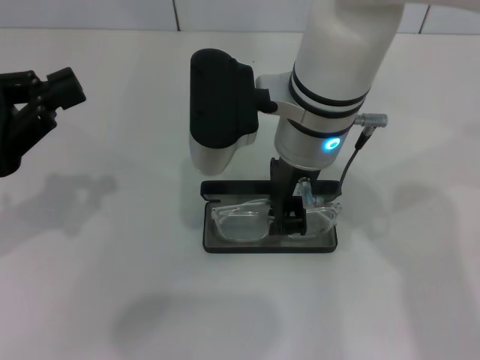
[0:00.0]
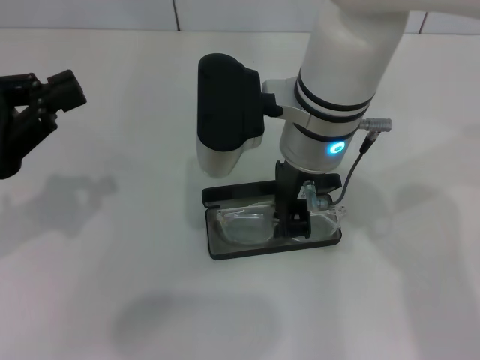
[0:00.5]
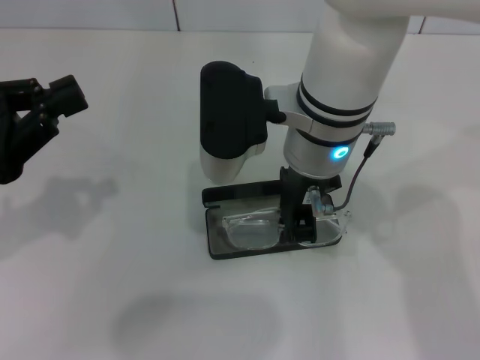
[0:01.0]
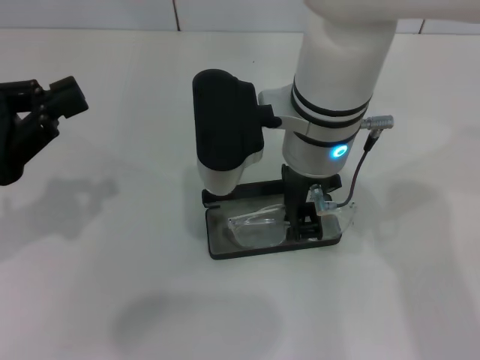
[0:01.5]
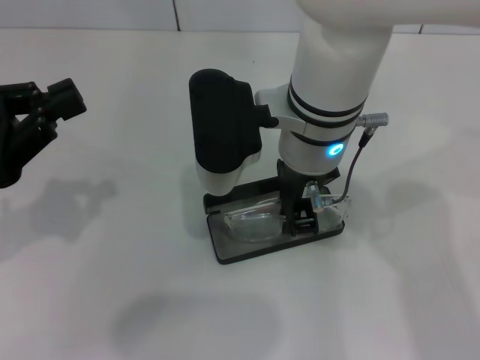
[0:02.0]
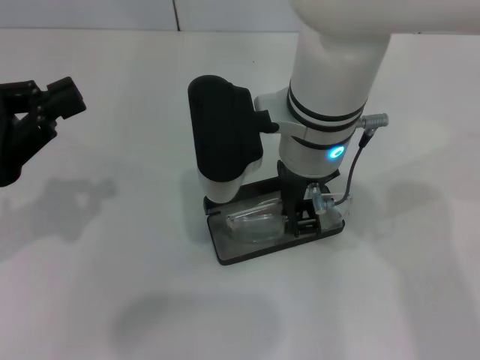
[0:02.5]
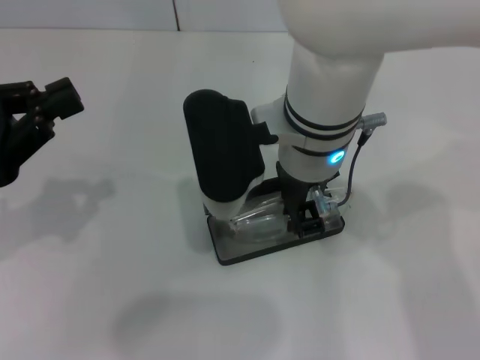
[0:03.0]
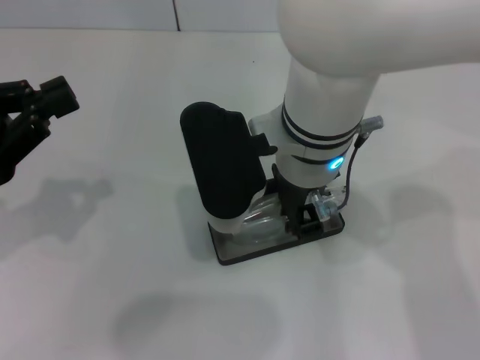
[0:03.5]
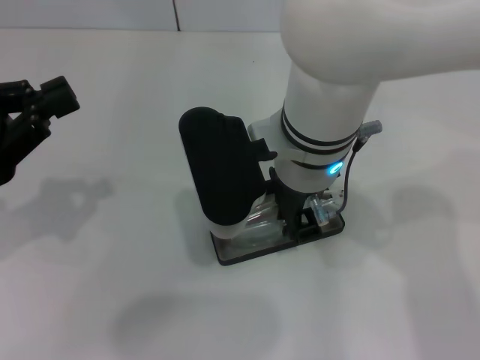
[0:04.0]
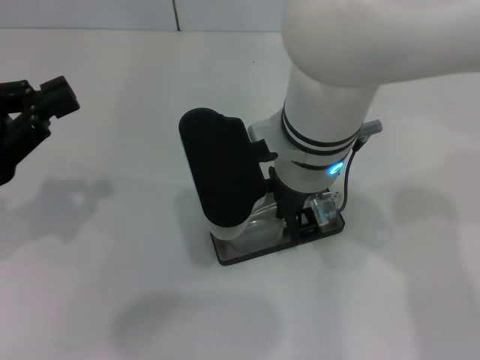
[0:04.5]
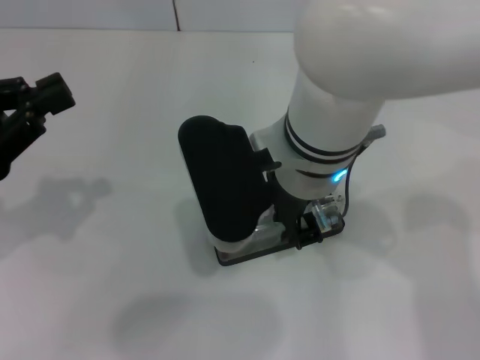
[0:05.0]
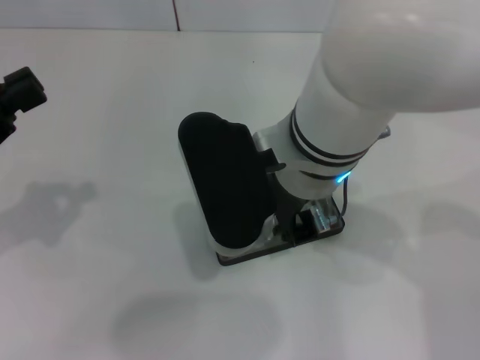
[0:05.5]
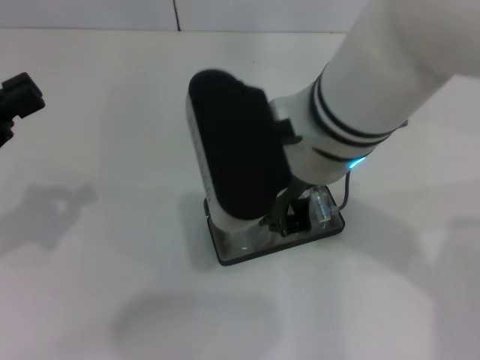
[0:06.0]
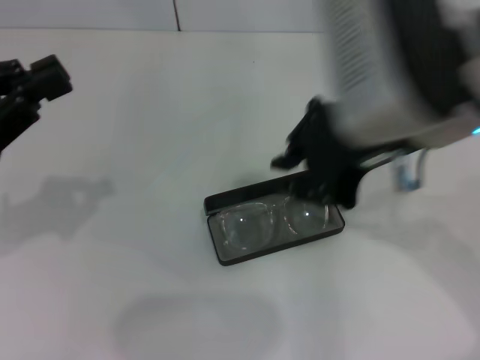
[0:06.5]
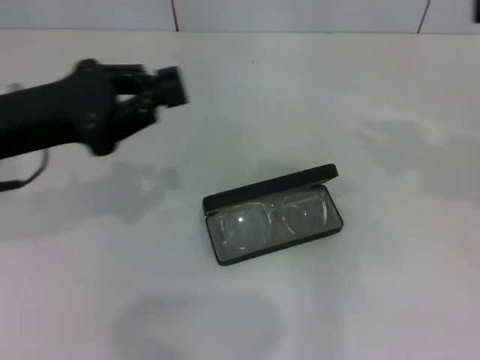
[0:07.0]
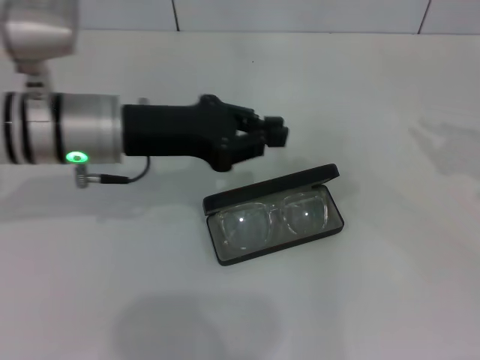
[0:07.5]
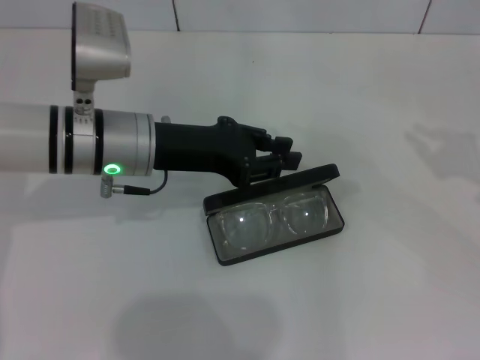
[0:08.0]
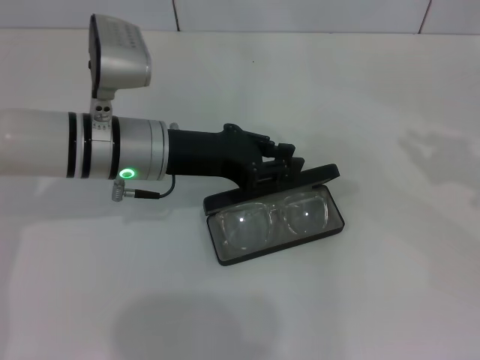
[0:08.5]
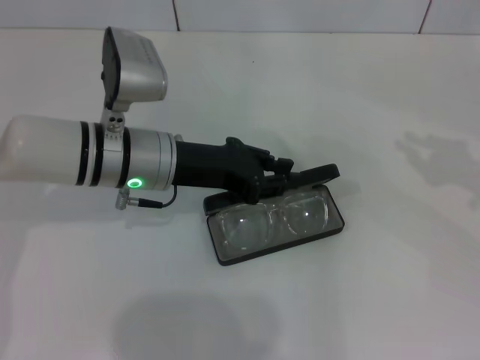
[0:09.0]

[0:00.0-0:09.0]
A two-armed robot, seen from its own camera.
Step, 0:00.0 to 0:05.5: Put the glasses into the case with your right hand.
0:00.0 to 0:04.5: The grippers stay close to where they were, moving slightly.
0:04.5 to 0:07.0: The right gripper moves to the right, about 30 cm; the left gripper travels to the right and forward by some 10 cm.
0:07.0 to 0:09.0: The left gripper is displaced to the right, downward and forward by about 15 cm, while the right gripper travels downward and to the right by about 10 cm.

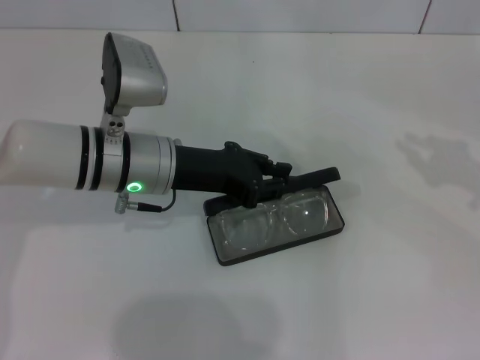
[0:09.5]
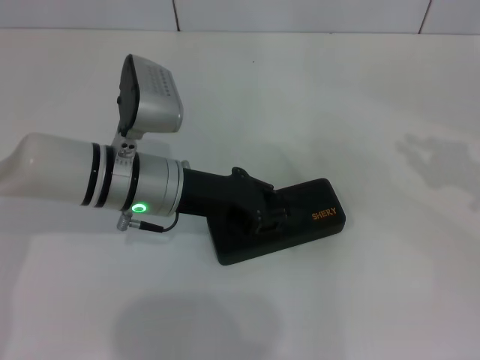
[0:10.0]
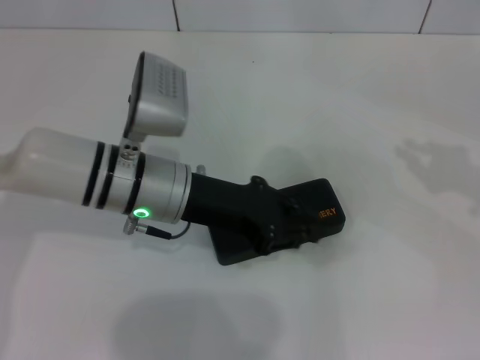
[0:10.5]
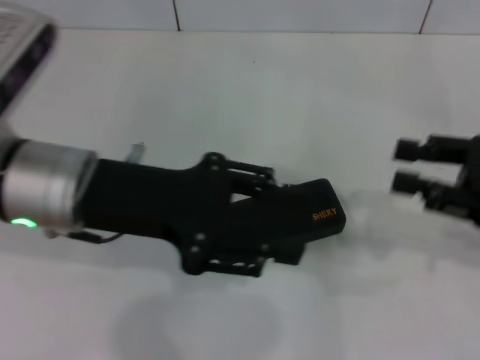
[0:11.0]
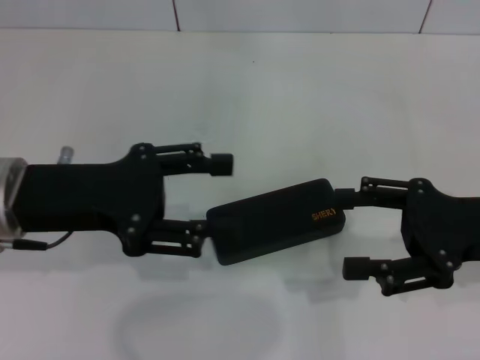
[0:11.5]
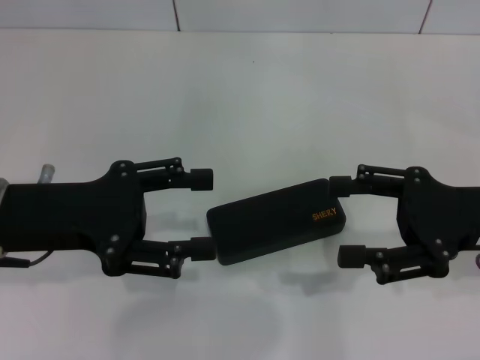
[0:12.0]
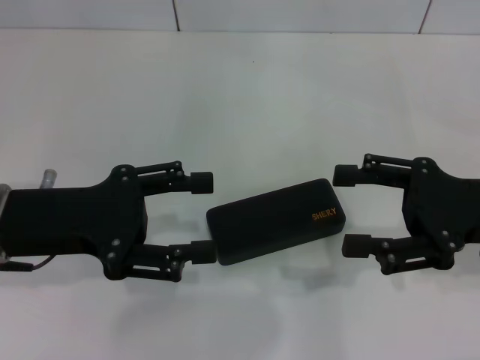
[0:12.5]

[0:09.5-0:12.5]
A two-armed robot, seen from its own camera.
0:09.5 to 0:11.0: The left gripper heads upward and backward, covering roughly 10 cm; the right gripper travels to the left by about 5 cm.
0:11.0 to 0:12.5: The right gripper opens its fingers. Meanwhile the left gripper moves to the left, about 5 cm, and opens.

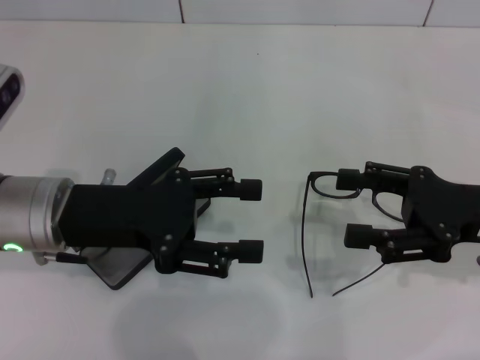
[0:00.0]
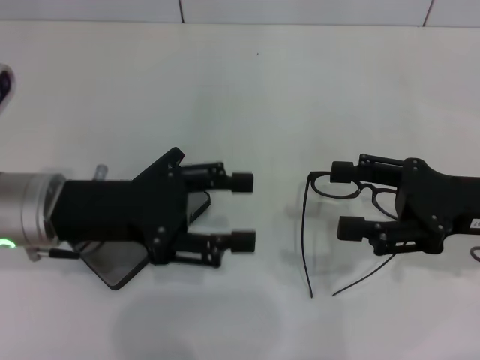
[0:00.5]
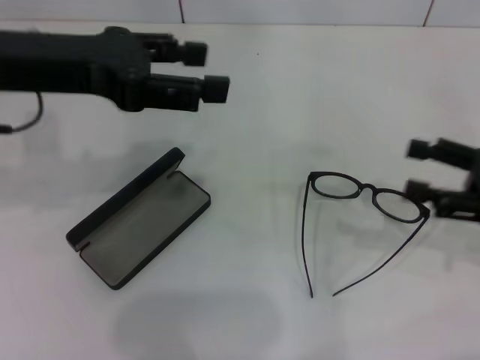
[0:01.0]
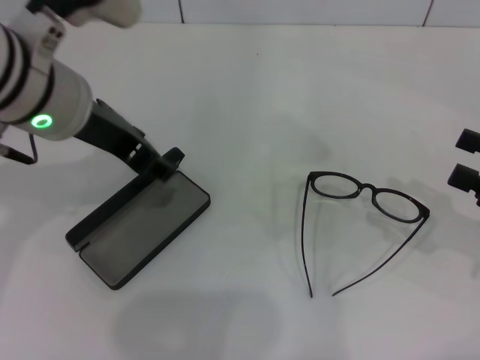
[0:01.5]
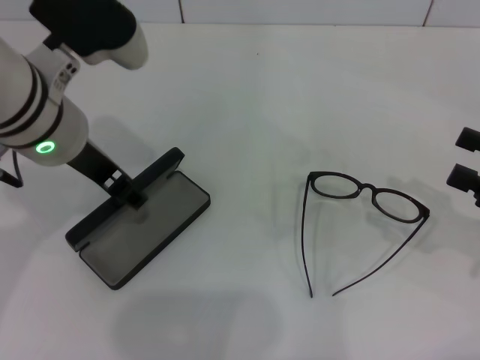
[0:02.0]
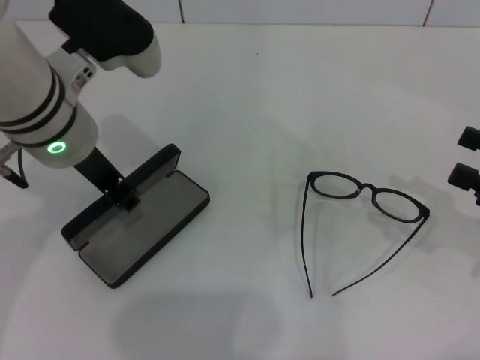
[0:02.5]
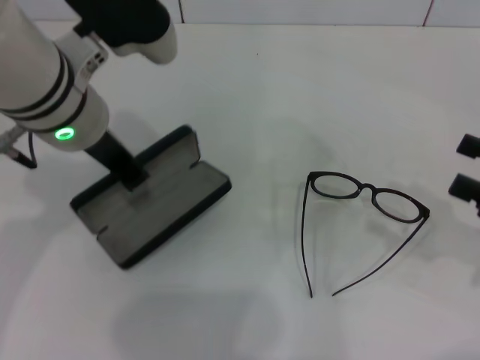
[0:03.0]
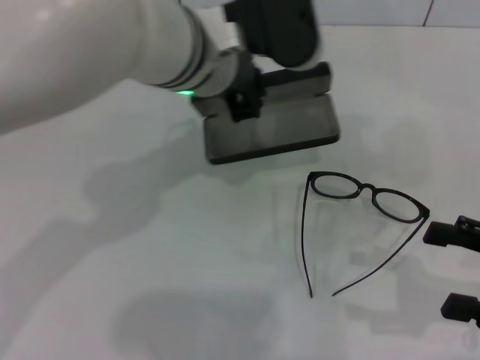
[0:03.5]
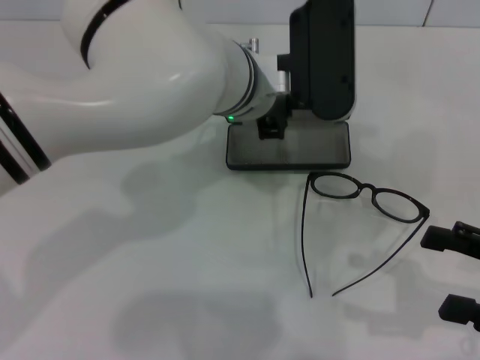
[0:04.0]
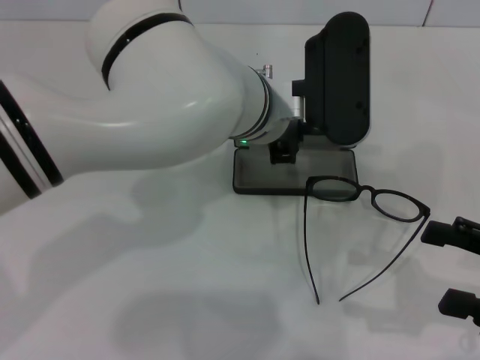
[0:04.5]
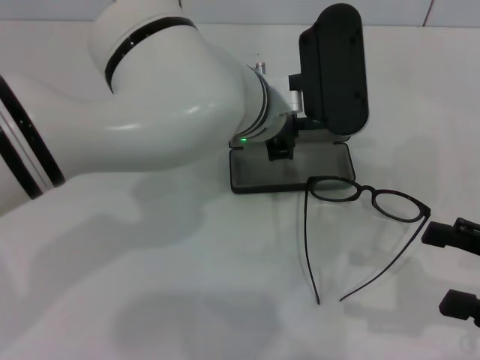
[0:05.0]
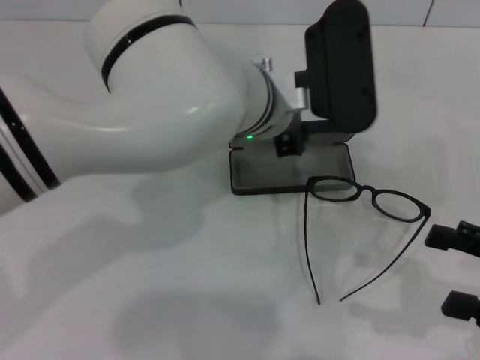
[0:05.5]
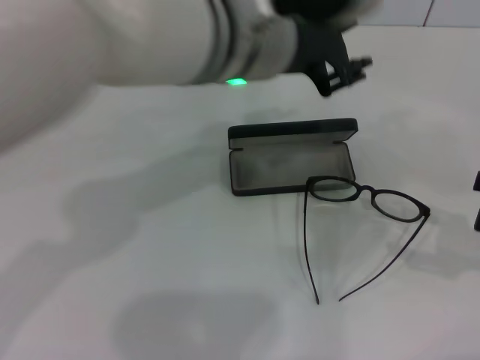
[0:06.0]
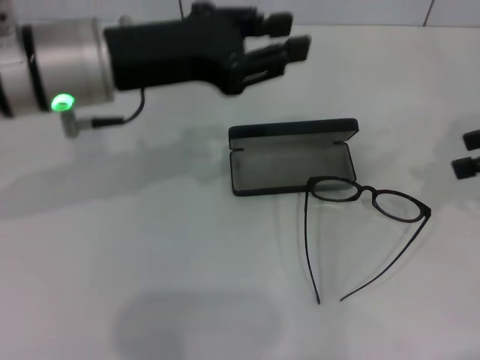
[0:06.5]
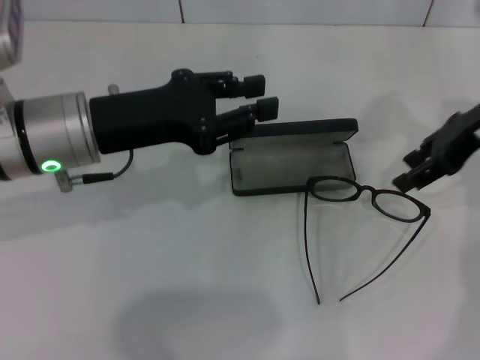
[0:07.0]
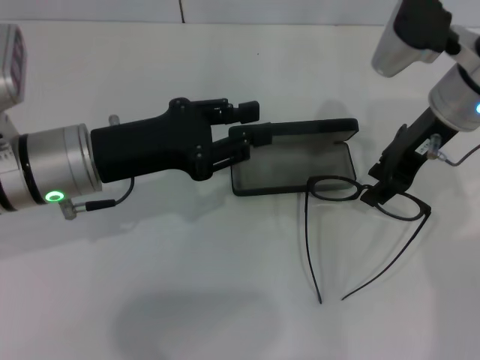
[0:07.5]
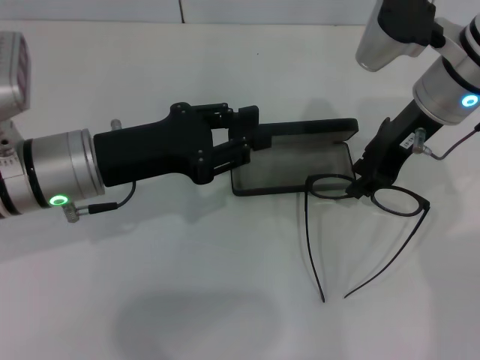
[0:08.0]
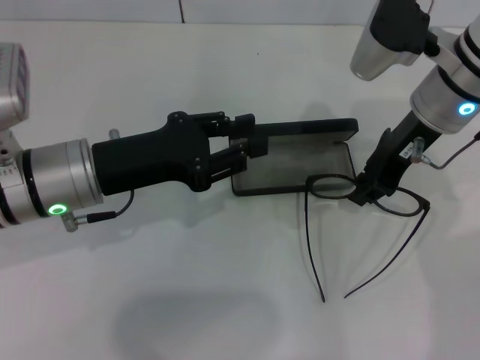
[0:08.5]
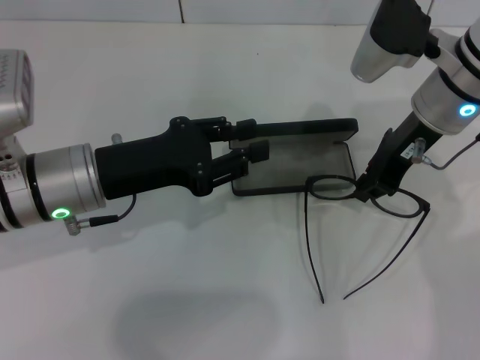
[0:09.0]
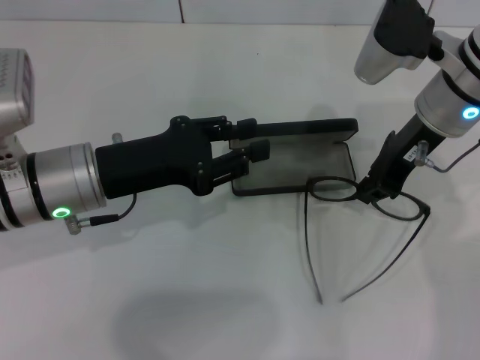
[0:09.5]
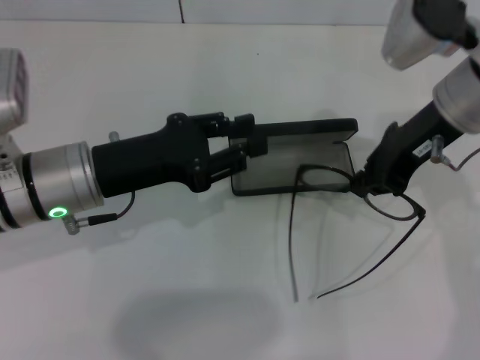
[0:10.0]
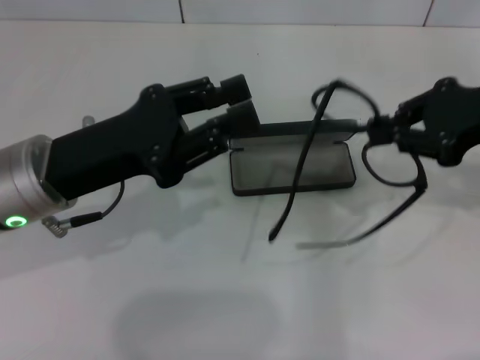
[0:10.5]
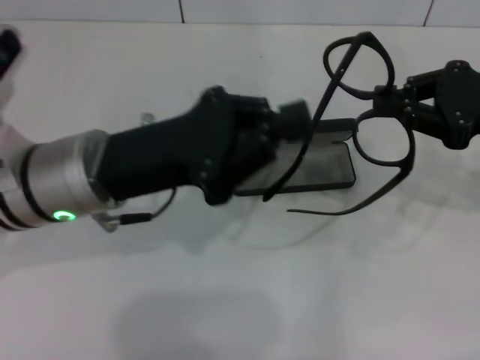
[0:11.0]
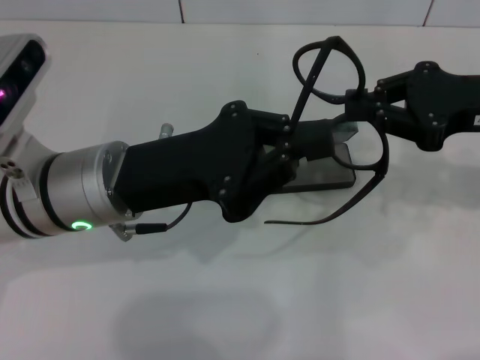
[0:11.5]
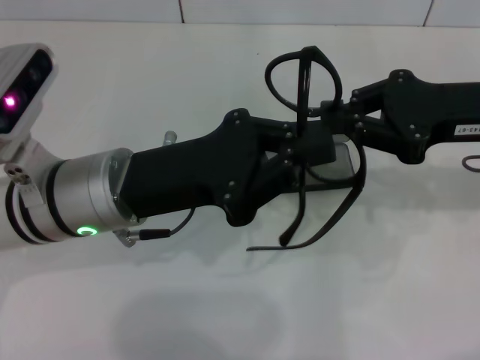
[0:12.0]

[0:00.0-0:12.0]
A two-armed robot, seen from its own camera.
Step, 0:00.0 to 0:02.5: Grab the glasses case with your left hand.
Step, 0:03.0 to 0:05.5: Place the glasses case in the center of the table with your left hand.
Step, 0:06.0 to 0:08.5: Grab the eyeglass frame with your right hand.
0:00.0 to 0:02.0: The right gripper heads to the right, covering approximately 10 cm. The left gripper is displaced upward by about 10 cm.
0:02.0 to 0:04.0: The left gripper is displaced to the right by some 15 cm, and closes its fingers. The right gripper moves some 5 cm.
0:04.0 to 0:06.0: The left gripper goes approximately 10 cm upward, while the right gripper moves to the right, roughly 5 cm.
0:06.0 to 0:08.0: The right gripper travels to the left and forward by some 25 cm, and closes. The left gripper heads to the left and downward, covering roughly 20 cm.
0:08.0 to 0:10.0: The right gripper closes up.
0:10.0 to 0:12.0: The left gripper changes place by approximately 5 cm, and closes up, while the right gripper travels to the right by some 5 cm.

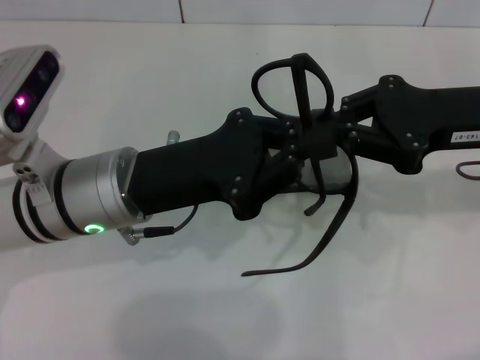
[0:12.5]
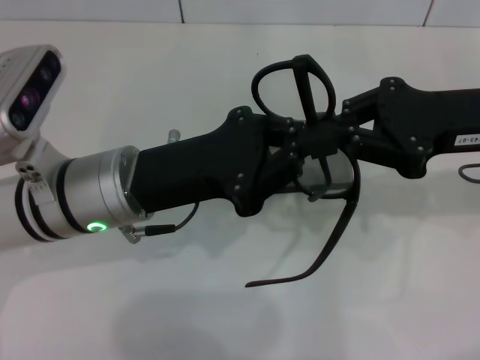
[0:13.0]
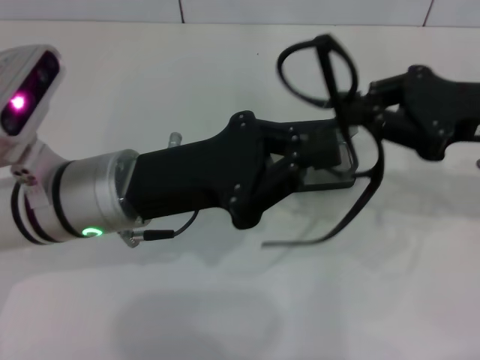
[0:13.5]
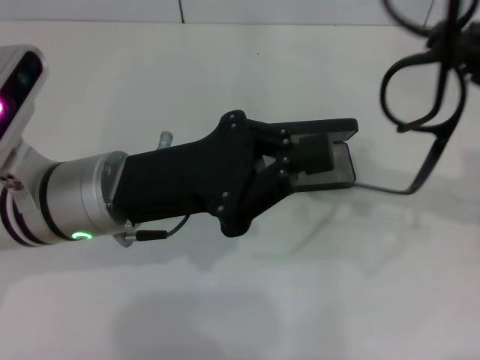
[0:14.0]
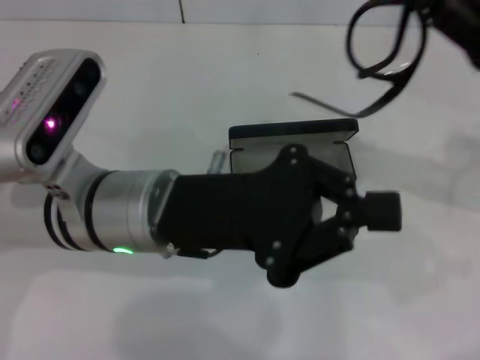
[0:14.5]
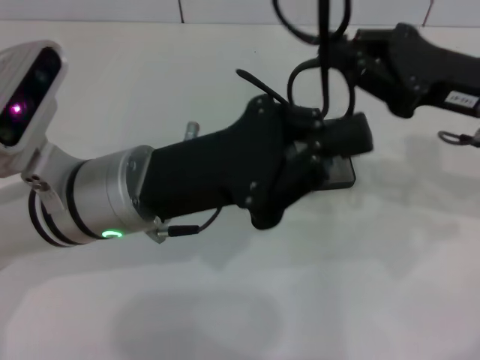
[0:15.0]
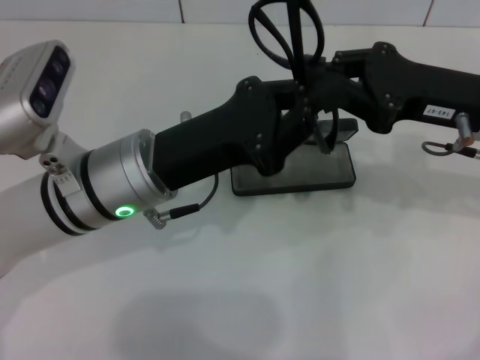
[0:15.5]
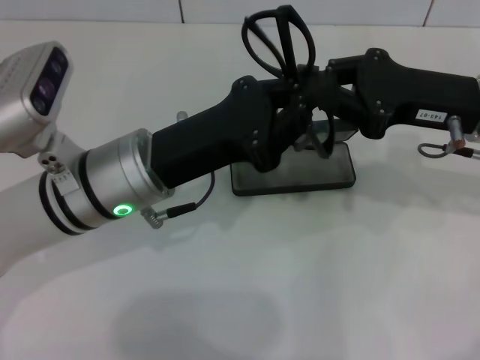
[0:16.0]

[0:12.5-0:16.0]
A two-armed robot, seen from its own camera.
0:14.5 to 0:16.0: The right gripper ends up about 5 cm from where it was.
